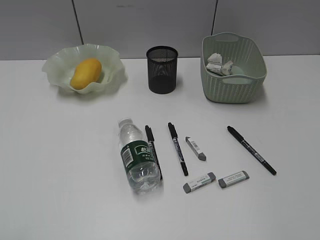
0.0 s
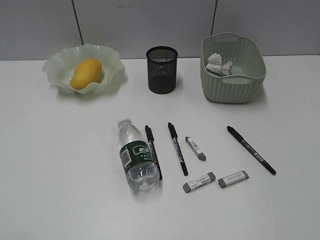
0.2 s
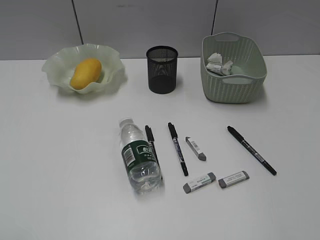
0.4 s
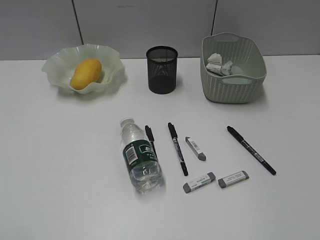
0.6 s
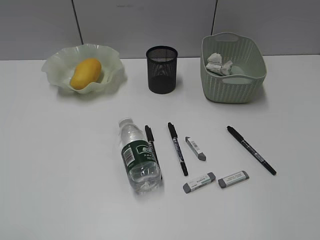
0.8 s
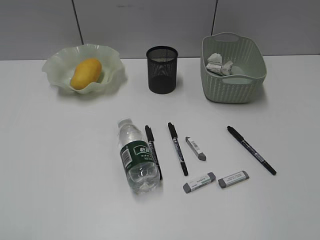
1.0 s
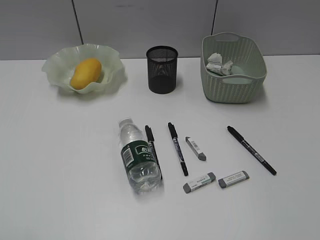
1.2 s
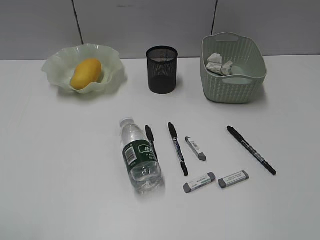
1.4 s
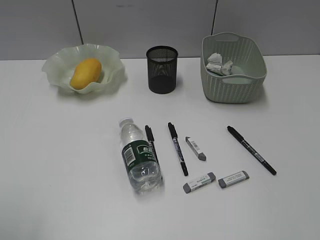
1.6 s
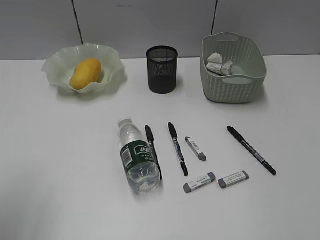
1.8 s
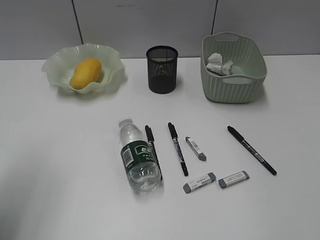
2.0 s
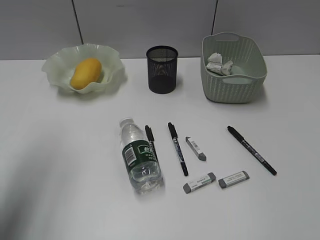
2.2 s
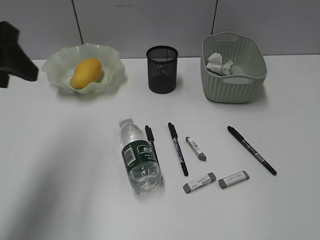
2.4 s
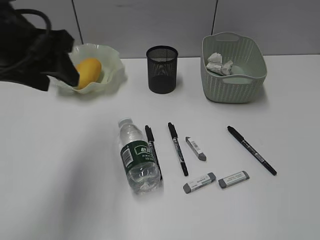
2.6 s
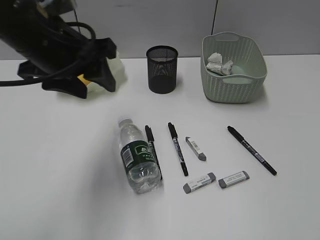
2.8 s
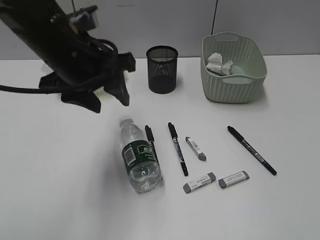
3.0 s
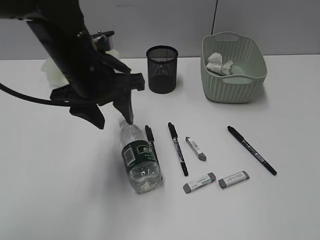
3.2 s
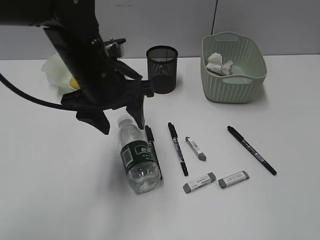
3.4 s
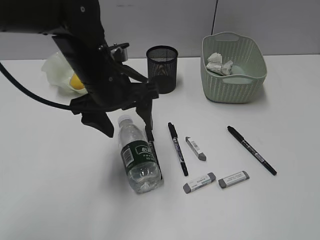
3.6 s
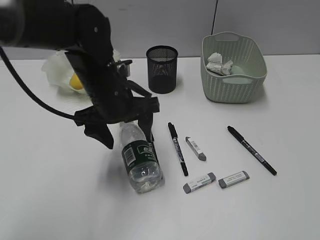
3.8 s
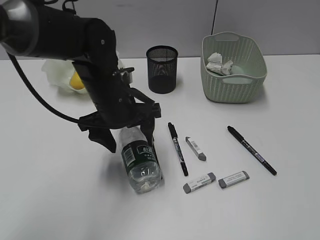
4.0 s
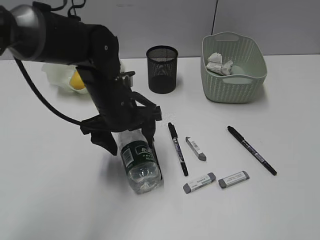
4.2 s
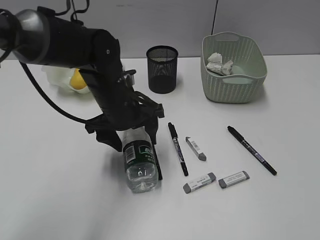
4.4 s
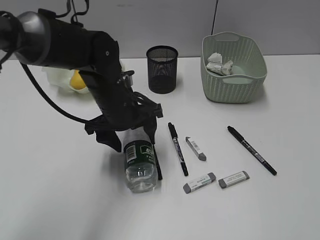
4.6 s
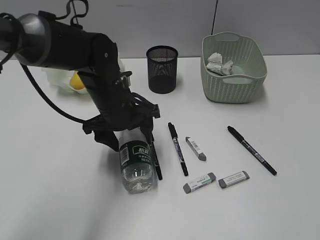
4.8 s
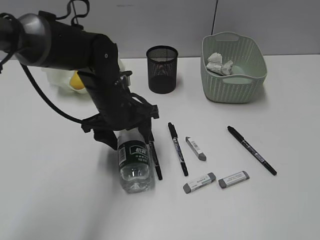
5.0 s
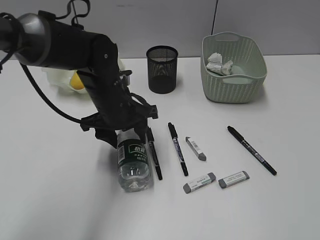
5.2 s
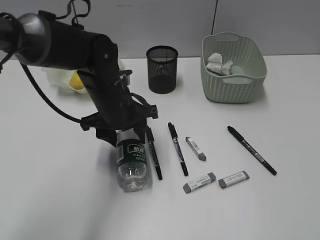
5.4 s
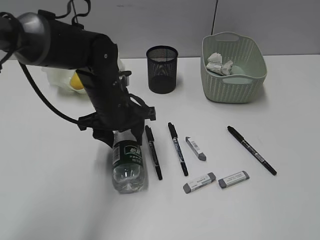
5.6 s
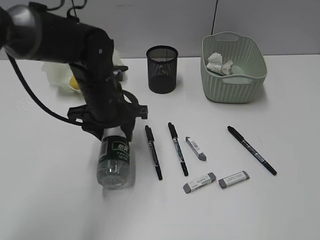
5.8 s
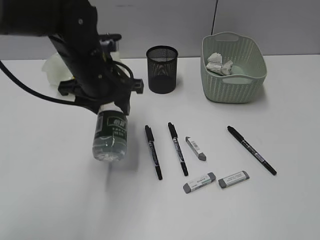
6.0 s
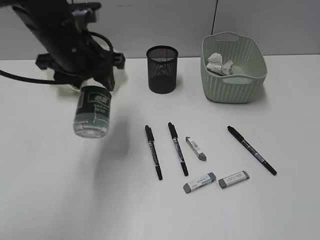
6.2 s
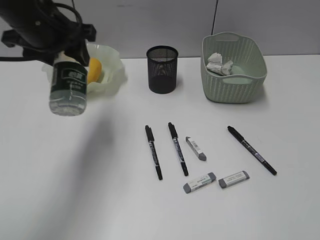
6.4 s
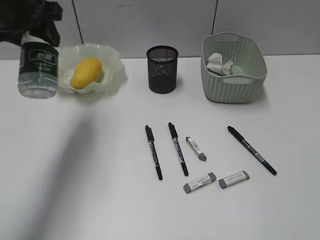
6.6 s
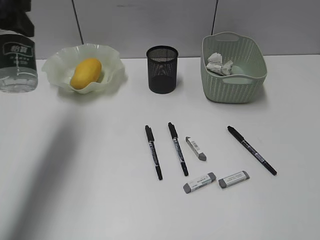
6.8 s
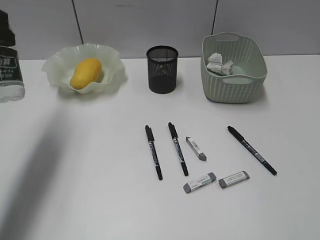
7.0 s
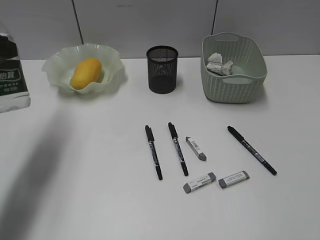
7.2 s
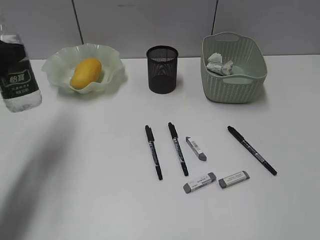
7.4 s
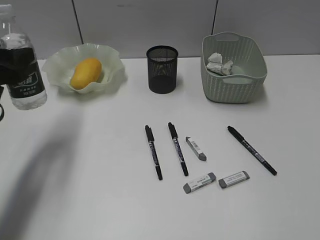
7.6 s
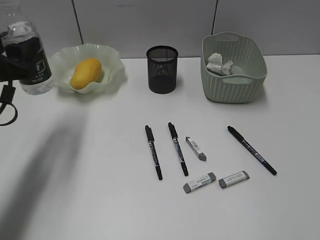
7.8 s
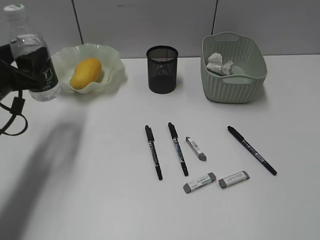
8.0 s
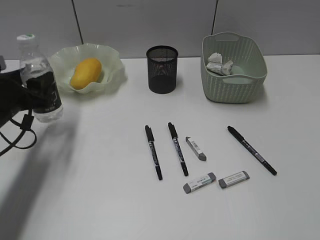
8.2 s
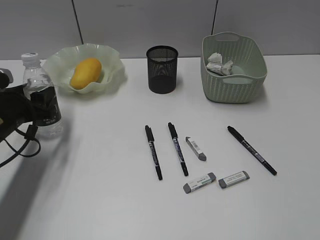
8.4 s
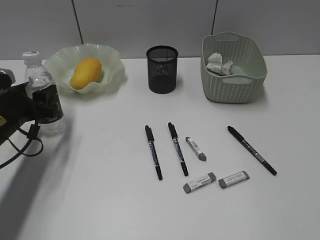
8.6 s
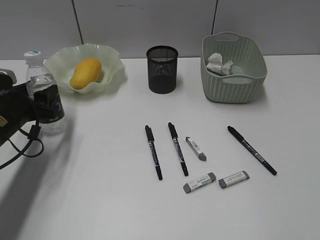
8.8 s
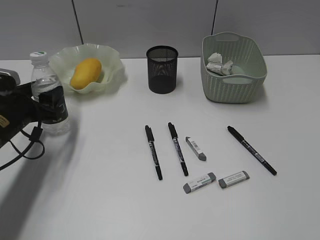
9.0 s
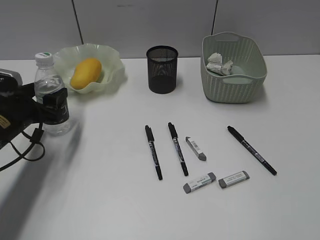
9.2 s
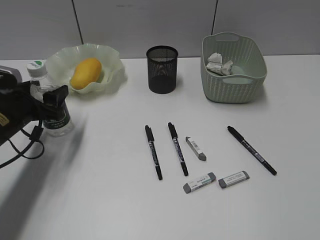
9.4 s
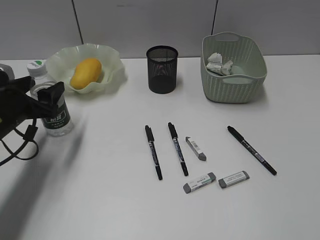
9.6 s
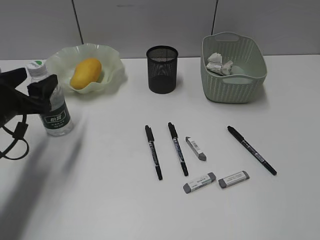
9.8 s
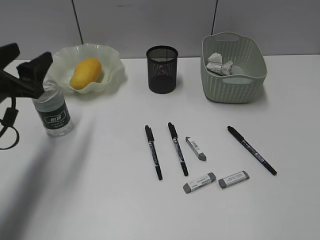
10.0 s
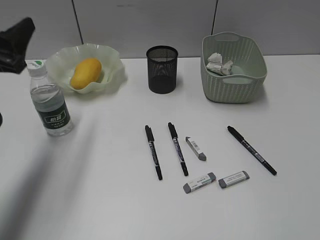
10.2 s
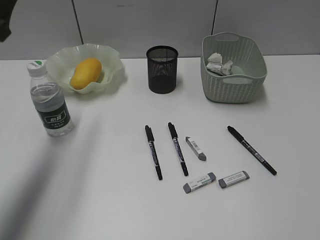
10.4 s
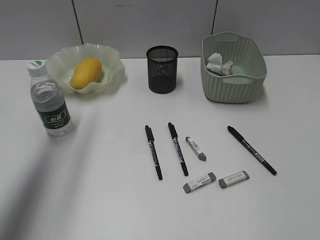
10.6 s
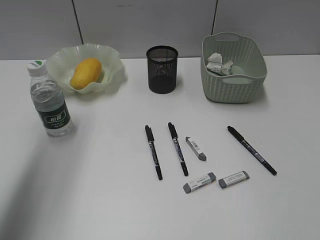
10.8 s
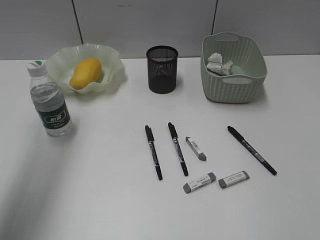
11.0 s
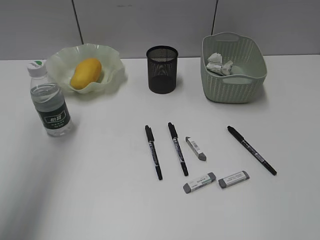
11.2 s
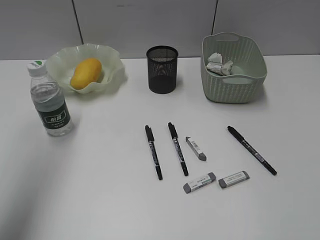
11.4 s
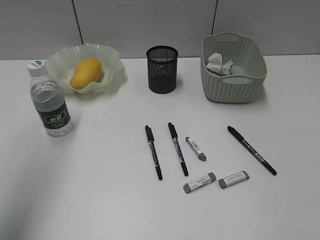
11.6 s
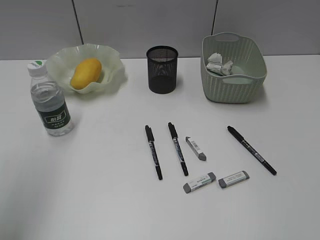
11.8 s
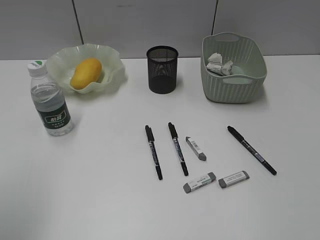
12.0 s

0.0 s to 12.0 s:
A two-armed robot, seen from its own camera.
Step, 0.0 to 5.6 s: Grasp the bottle with left gripper.
Step, 5.8 to 9.8 s: Stand the bottle with left gripper.
1.6 to 3.0 s: The left gripper heads forward and to the right, covering about 30 cm.
3.0 to 4.4 s: The left gripper heads downward, covering roughly 10 cm.
4.4 to 6.0 s: The left gripper travels upward by some 5 cm.
6.0 to 7.6 s: The left gripper is displaced to the left by approximately 15 cm.
7.6 to 9.0 s: The left gripper heads downward, covering roughly 10 cm.
9.0 to 10.4 s: The left gripper travels upward by some 20 cm.
10.4 to 12.0 s: The left gripper shifts roughly 20 cm backward and upward.

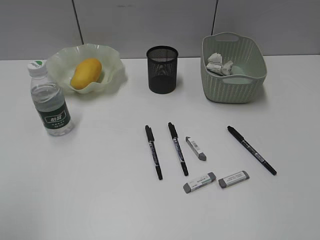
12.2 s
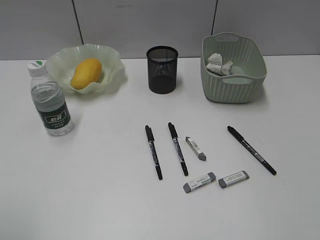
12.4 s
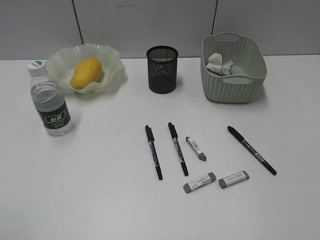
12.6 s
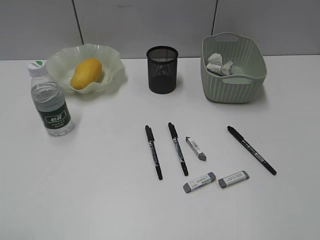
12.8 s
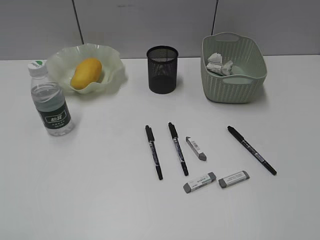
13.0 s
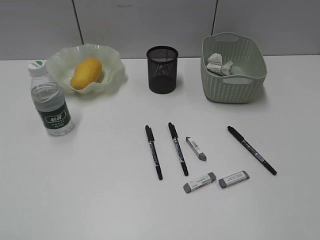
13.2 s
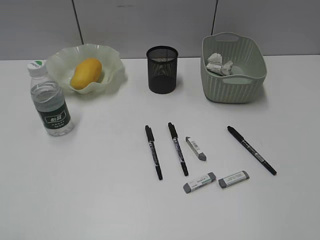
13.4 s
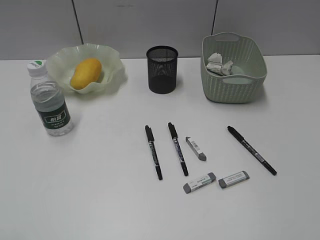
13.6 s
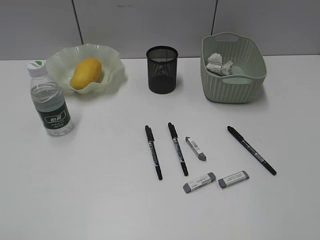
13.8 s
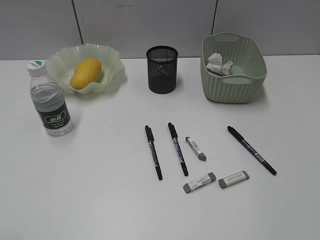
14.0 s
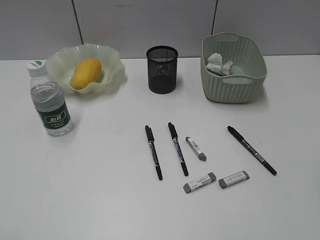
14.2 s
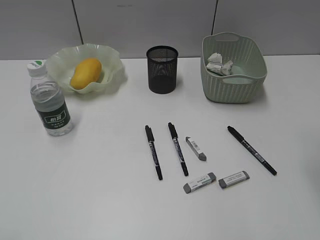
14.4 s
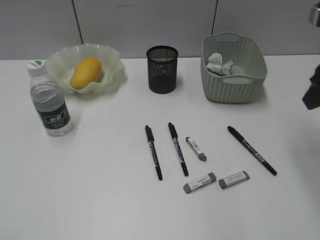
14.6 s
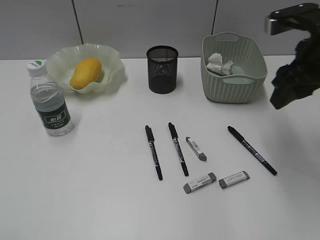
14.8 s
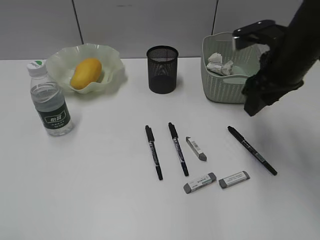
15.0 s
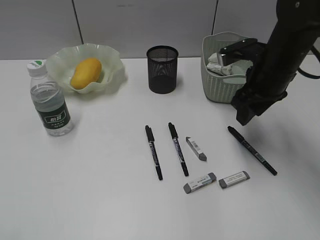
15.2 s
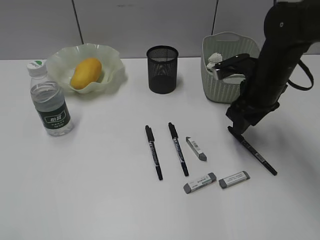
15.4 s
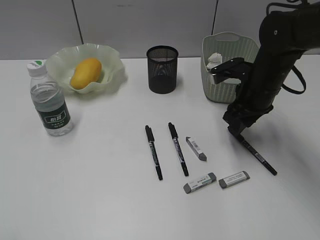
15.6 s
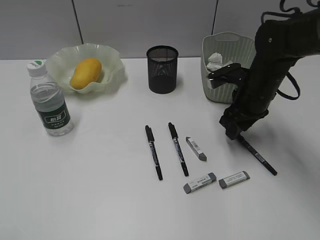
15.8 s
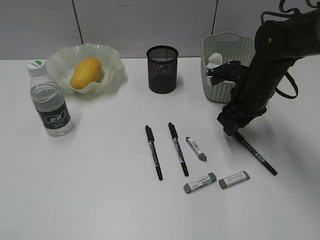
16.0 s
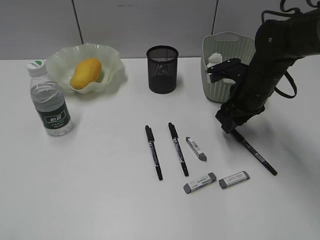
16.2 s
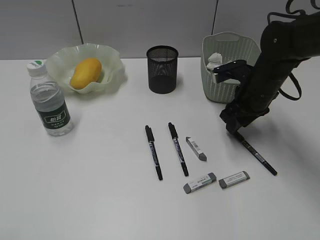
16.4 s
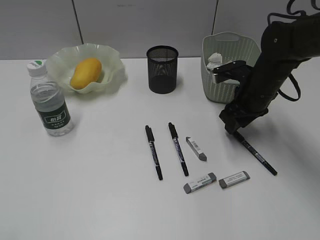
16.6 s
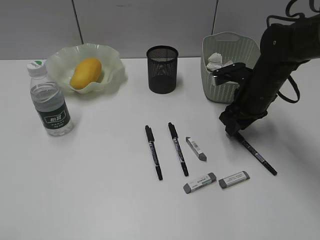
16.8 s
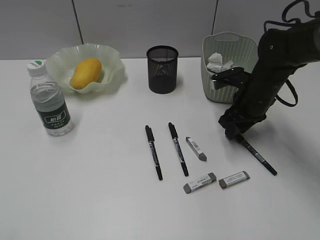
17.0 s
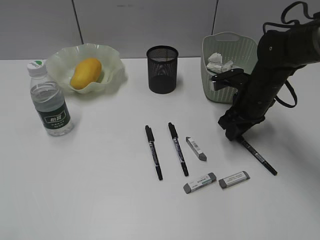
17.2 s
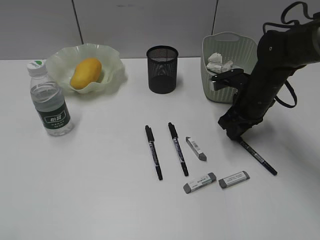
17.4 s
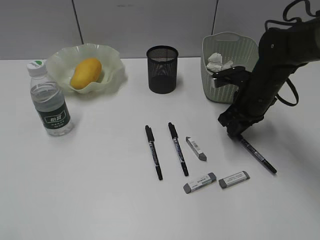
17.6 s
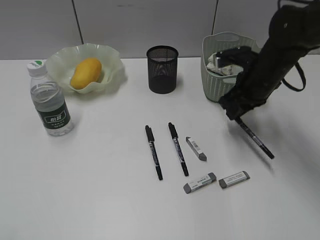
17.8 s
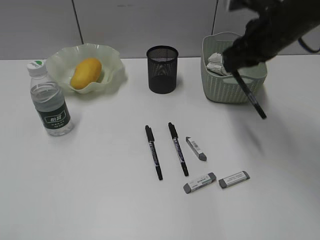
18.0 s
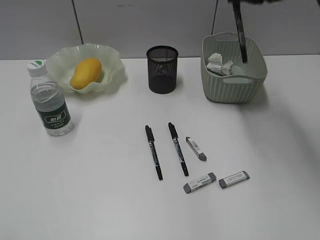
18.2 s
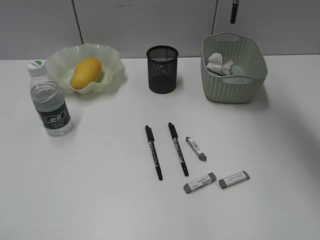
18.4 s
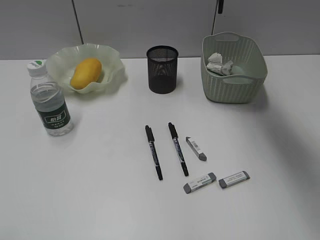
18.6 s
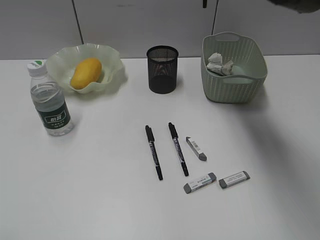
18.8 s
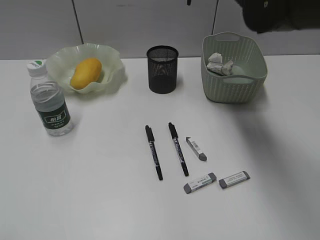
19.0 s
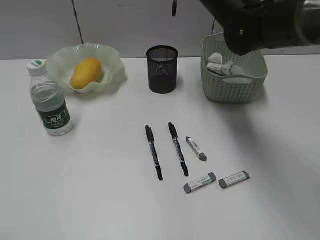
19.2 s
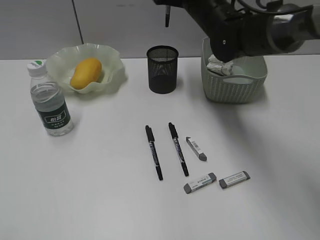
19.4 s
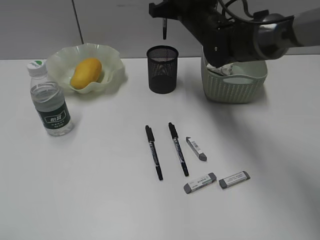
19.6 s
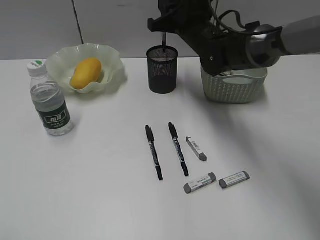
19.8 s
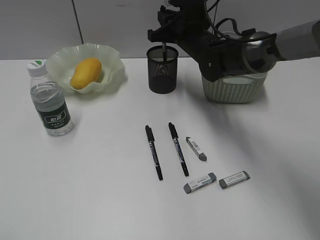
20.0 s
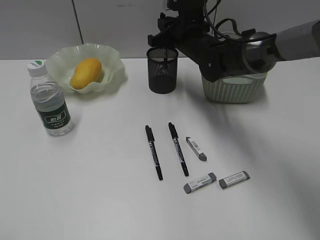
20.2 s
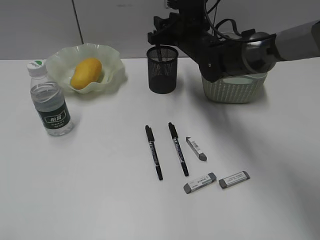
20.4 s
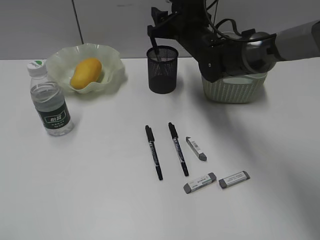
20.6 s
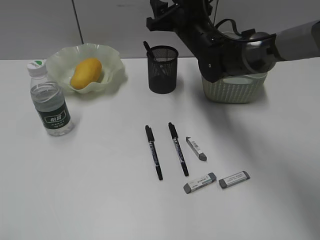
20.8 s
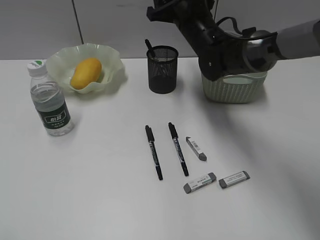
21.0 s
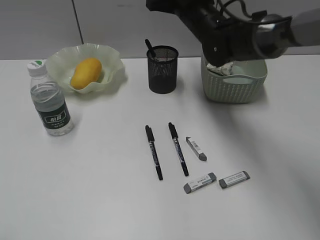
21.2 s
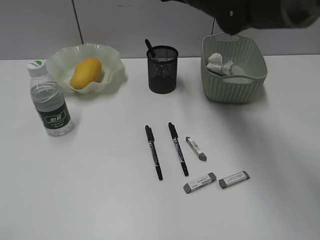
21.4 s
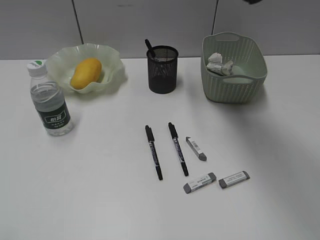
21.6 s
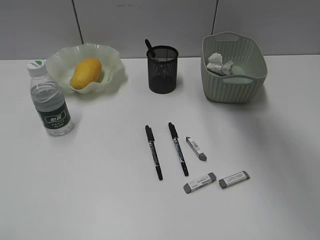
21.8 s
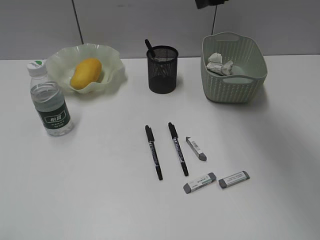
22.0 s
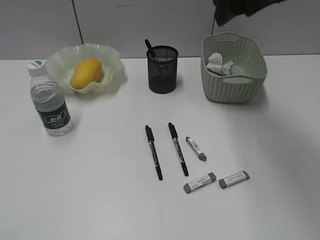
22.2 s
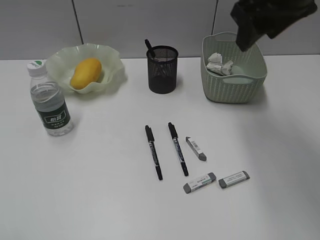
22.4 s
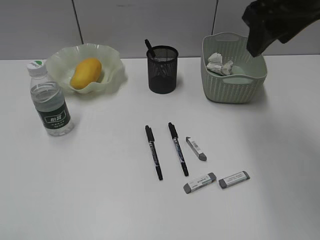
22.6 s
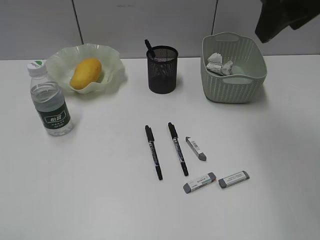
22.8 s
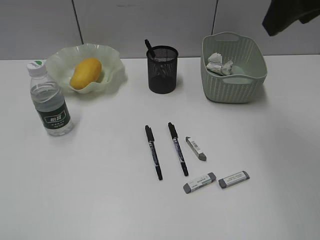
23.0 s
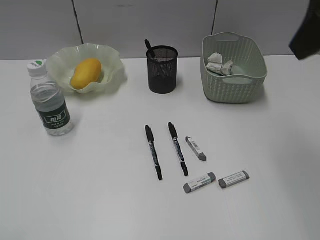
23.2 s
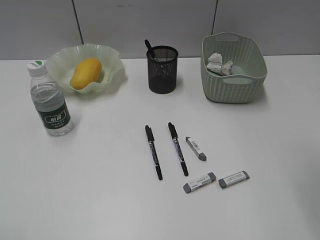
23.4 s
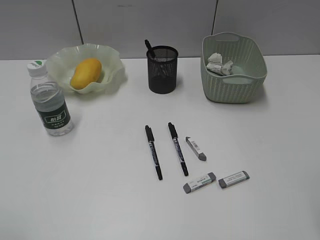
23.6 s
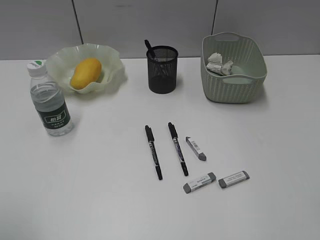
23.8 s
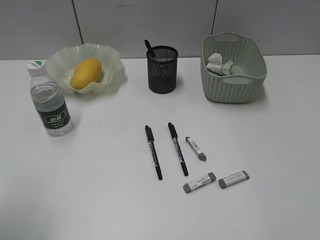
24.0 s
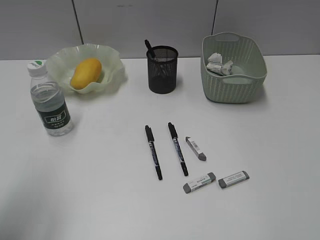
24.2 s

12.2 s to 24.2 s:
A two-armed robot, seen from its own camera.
Step, 12.2 to 17.4 s: Grasp the black pen with right gripper.
Step, 17.6 to 20.6 s: Place the black pen in pen holder with right gripper.
13.8 to 15.2 s: The right gripper shifts roughly 35 cm forward.
15.2 to 16.6 s: The right gripper goes roughly 5 cm downward.
16.6 to 18.2 s: The right gripper is displaced upward by approximately 20 cm, and closes.
18.2 to 19.8 s: The right gripper heads downward, to the left and forward, covering about 20 cm.
19.8 to 21.2 s: The right gripper opens.
21.2 to 22.6 s: The right gripper goes about 20 cm backward, upward and to the right. Meanwhile the left gripper opens.
22.6 to 24.2 s: The right gripper travels backward and to the right by about 30 cm. Meanwhile the left gripper shifts about 15 cm forward.
